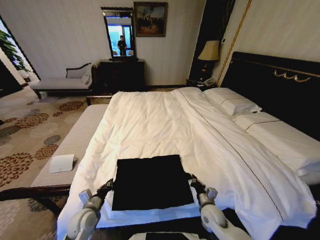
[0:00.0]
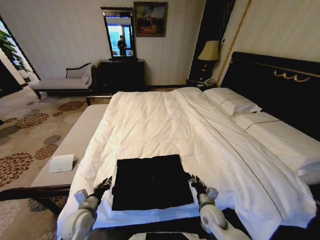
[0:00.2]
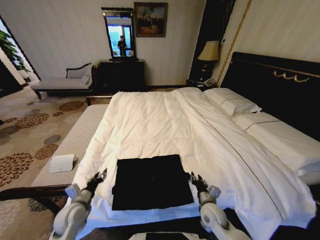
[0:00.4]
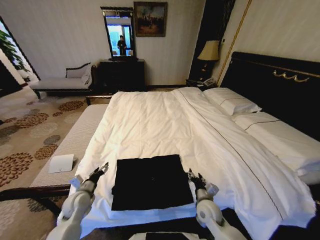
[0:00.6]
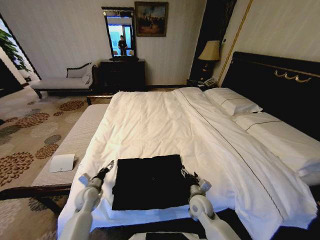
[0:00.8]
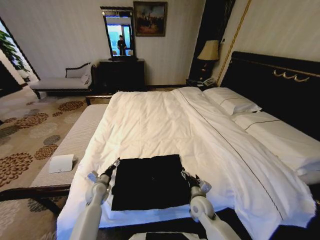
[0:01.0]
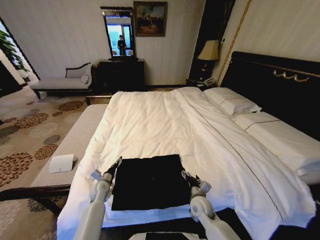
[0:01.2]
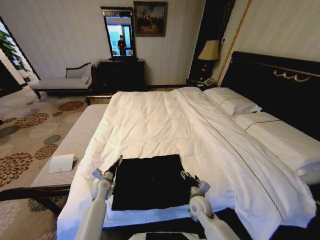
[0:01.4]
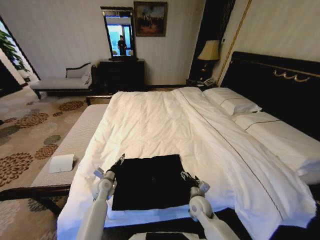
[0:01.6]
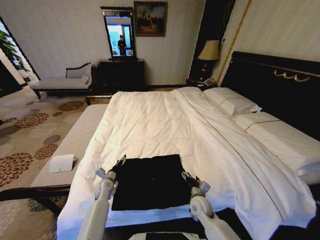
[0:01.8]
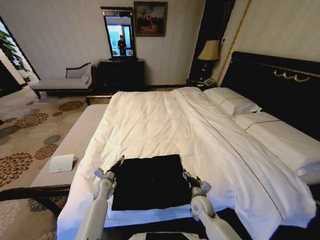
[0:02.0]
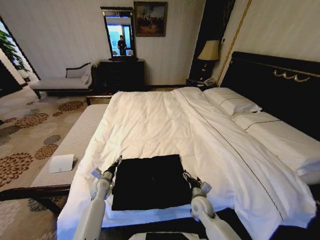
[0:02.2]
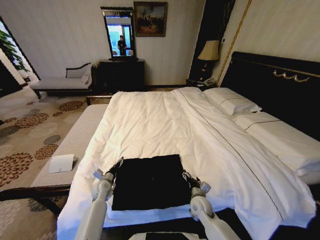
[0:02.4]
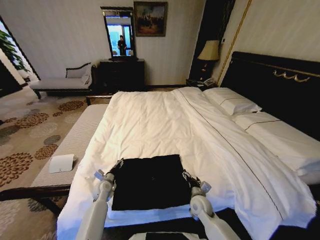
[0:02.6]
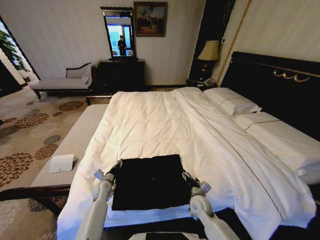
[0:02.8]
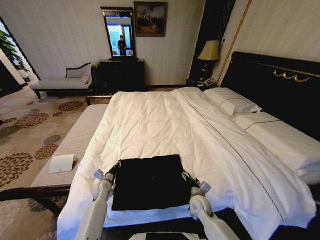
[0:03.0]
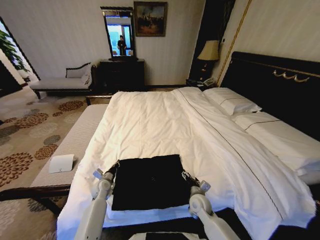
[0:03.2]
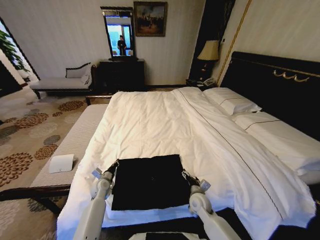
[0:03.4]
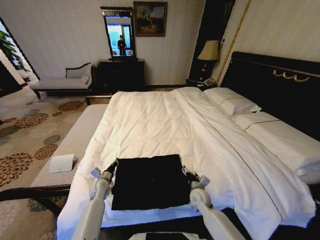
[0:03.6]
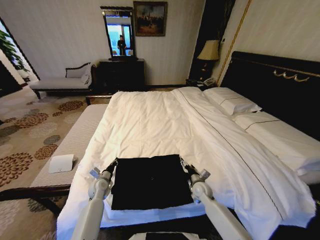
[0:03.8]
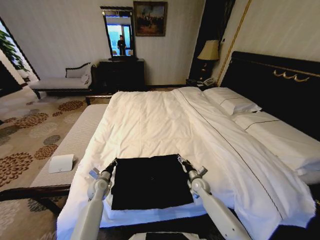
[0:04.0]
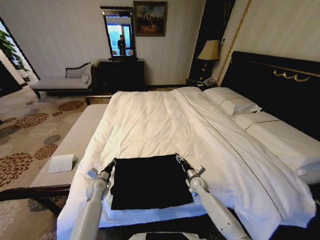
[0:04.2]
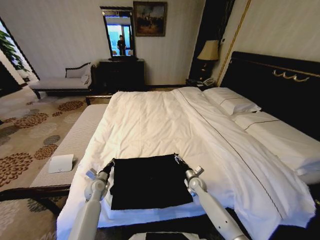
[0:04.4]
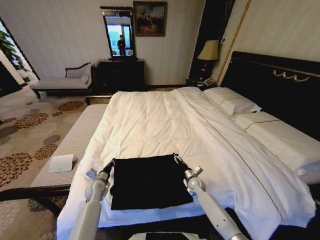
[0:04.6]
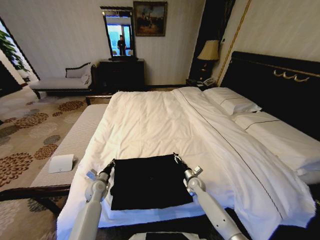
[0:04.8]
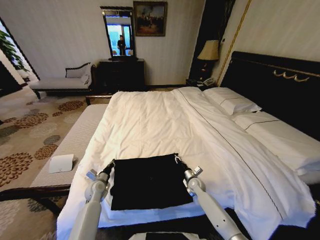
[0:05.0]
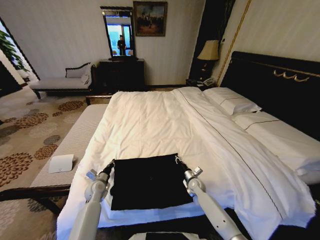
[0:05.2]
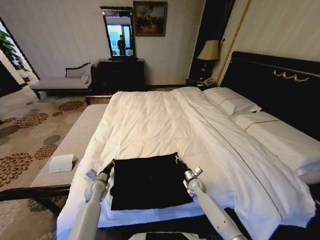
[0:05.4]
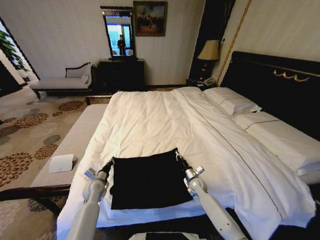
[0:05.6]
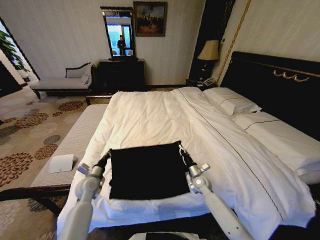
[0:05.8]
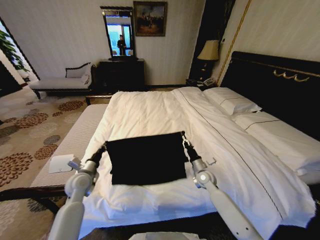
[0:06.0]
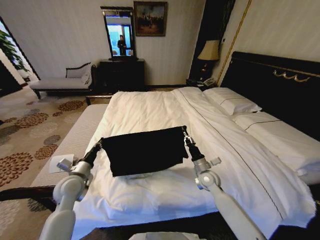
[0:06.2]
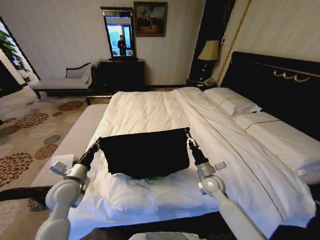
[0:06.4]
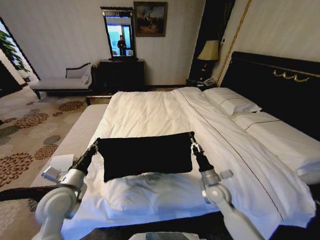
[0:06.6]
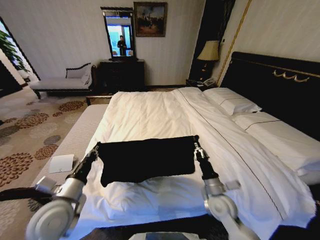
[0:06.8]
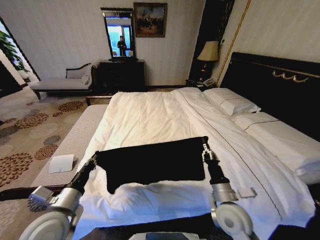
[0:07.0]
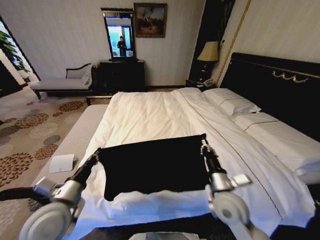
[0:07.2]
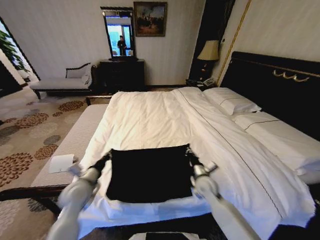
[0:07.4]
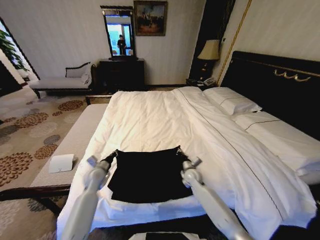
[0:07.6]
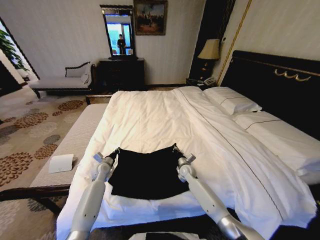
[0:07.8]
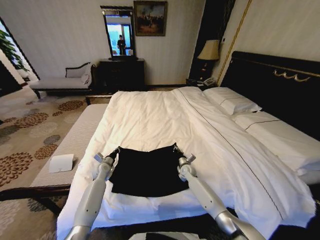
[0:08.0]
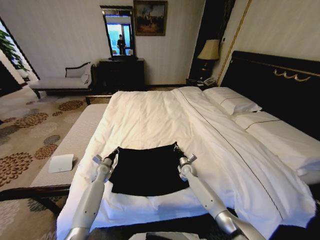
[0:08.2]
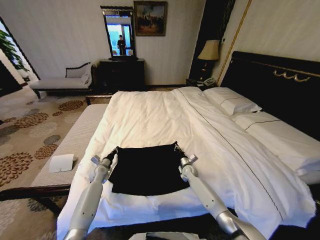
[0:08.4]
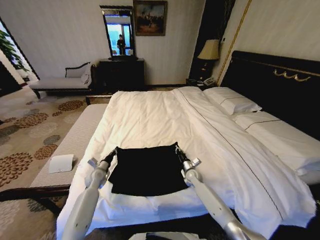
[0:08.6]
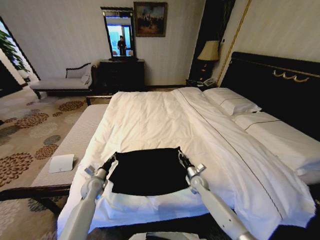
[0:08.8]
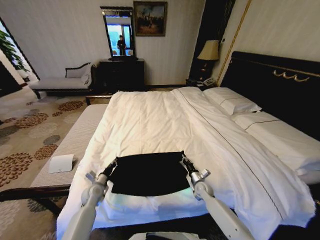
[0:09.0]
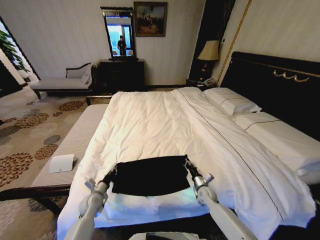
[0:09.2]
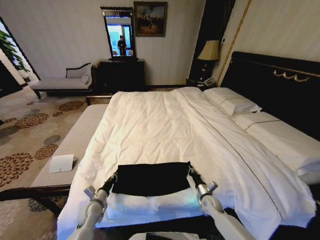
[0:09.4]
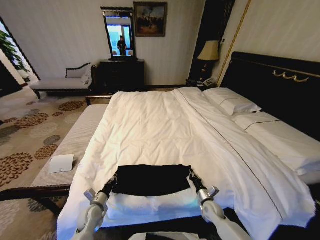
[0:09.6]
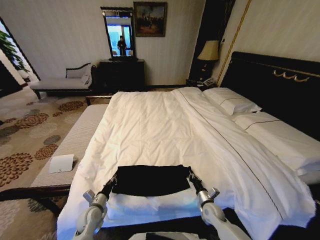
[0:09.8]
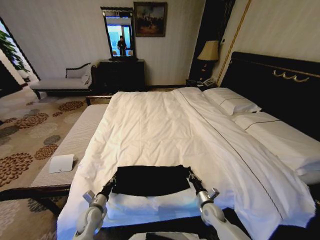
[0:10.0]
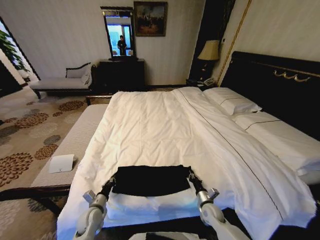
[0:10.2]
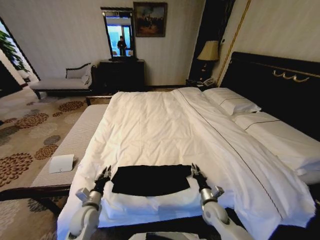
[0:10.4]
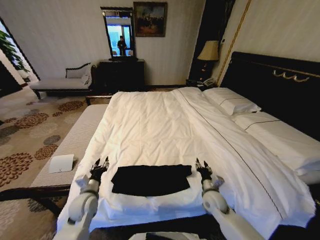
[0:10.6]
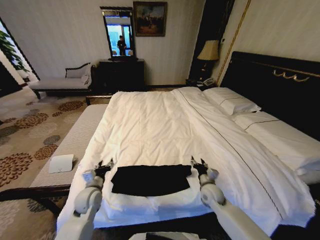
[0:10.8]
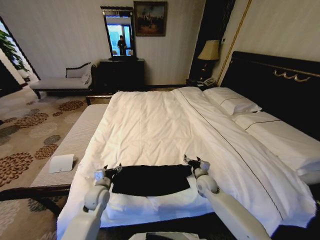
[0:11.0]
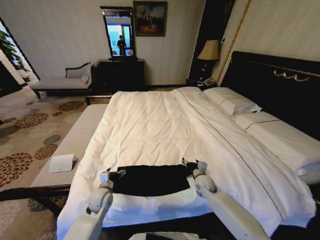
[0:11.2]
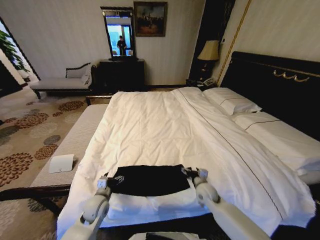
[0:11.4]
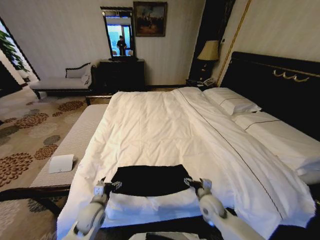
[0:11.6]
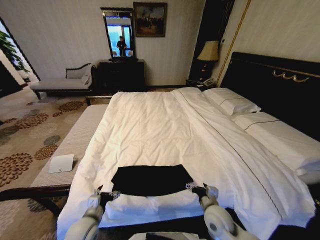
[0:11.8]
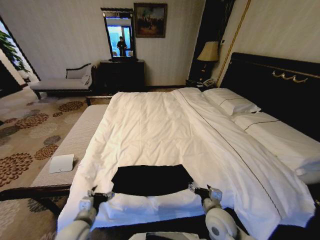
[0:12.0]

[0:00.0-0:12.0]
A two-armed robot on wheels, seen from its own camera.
Task of the whole recording: Fold the clothes on the bed.
0:00.0 to 0:01.6: The right gripper shifts by roughly 5 cm, and opens up; the left gripper travels forward by approximately 15 cm, and opens.
0:01.6 to 0:03.0: The left gripper closes.
0:03.0 to 0:04.4: The right gripper goes about 10 cm forward and downward.
0:04.4 to 0:06.0: The grippers both shift upward by some 10 cm. The right gripper closes its fingers.
0:06.0 to 0:07.6: The right gripper goes some 5 cm to the left, and reaches roughly 20 cm backward, then returns. Meanwhile the left gripper shifts roughly 5 cm downward, and moves approximately 15 cm backward and comes back.
0:07.6 to 0:09.0: The right gripper shifts about 10 cm downward and to the right; the left gripper moves downward and backward, some 10 cm.
0:09.0 to 0:10.4: Both grippers travel together backward, some 10 cm.
0:10.4 to 0:12.0: The left gripper travels upward and backward by roughly 10 cm, and opens its fingers; the right gripper is displaced upward by roughly 10 cm, travels forward and back again, approximately 10 cm each way, and opens.

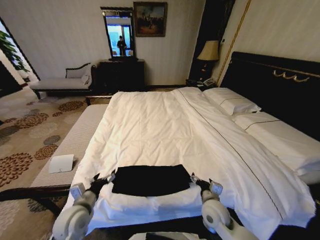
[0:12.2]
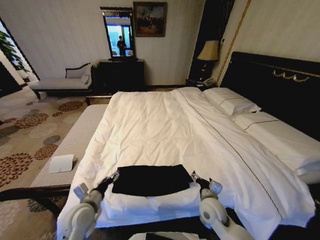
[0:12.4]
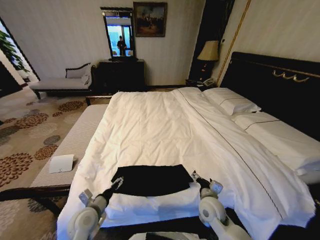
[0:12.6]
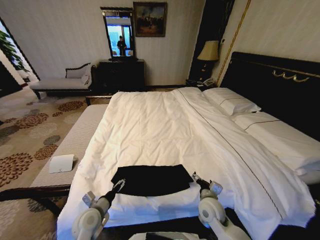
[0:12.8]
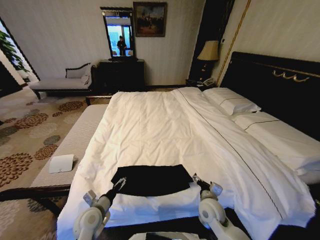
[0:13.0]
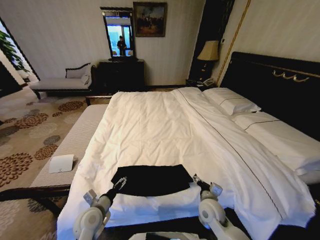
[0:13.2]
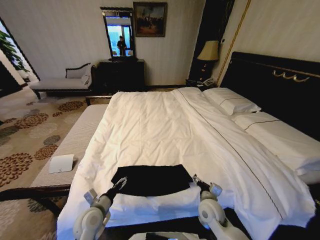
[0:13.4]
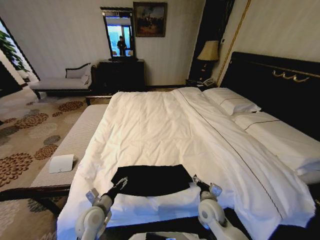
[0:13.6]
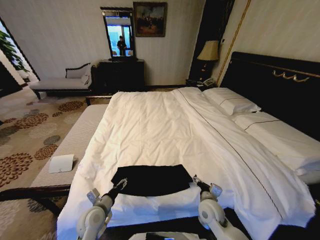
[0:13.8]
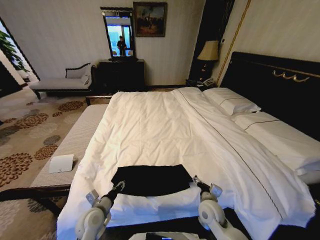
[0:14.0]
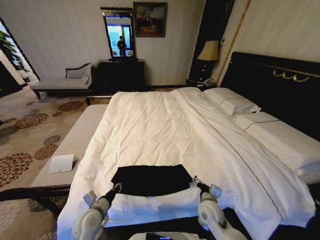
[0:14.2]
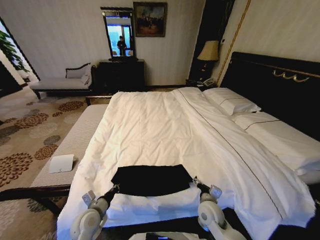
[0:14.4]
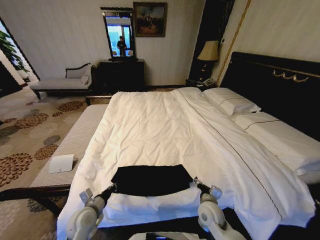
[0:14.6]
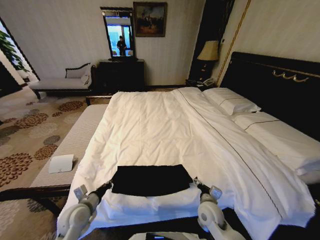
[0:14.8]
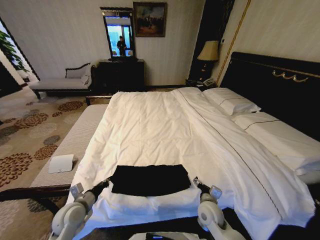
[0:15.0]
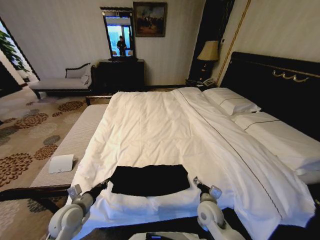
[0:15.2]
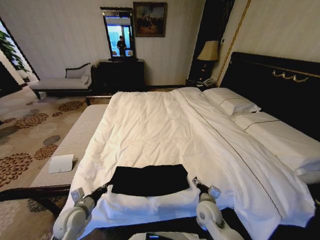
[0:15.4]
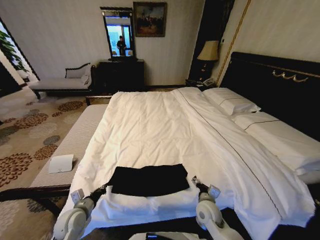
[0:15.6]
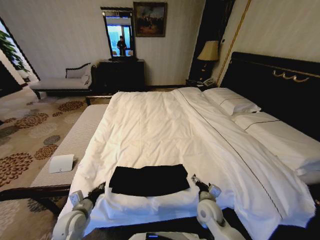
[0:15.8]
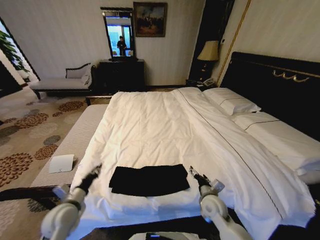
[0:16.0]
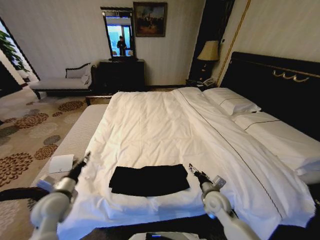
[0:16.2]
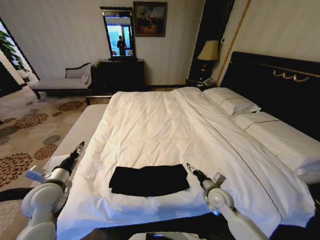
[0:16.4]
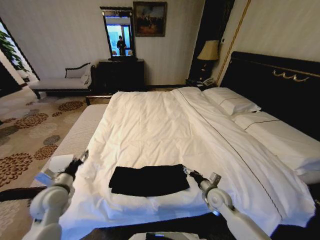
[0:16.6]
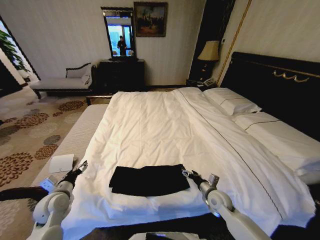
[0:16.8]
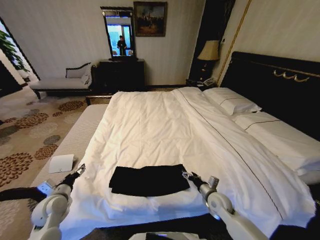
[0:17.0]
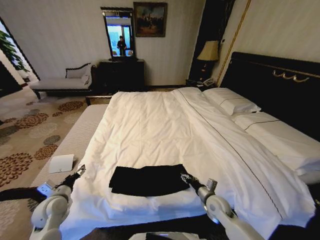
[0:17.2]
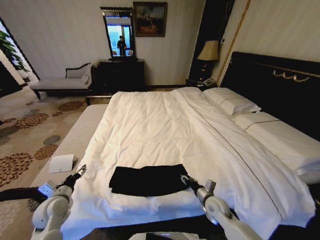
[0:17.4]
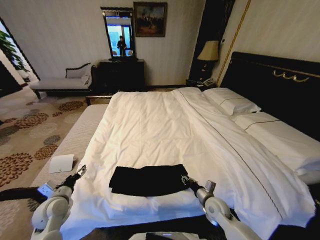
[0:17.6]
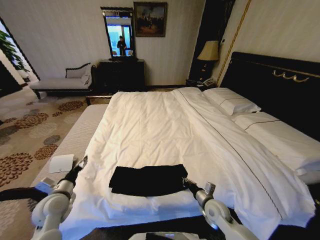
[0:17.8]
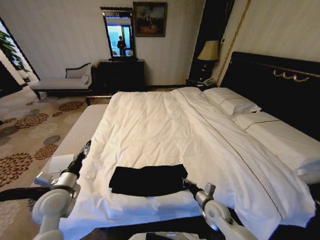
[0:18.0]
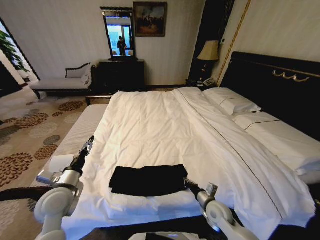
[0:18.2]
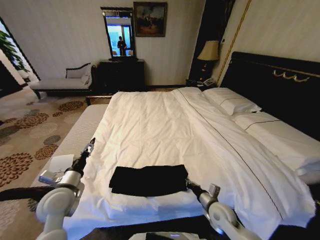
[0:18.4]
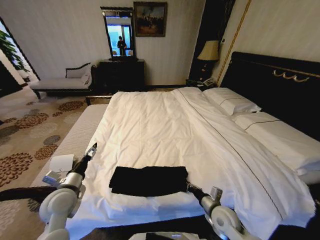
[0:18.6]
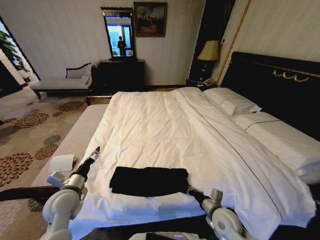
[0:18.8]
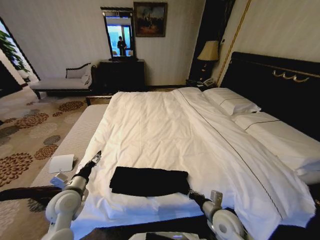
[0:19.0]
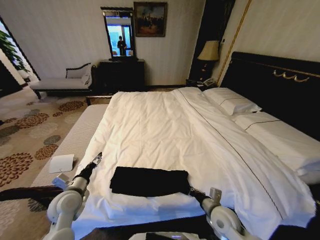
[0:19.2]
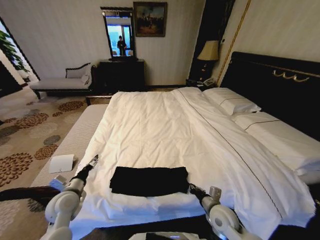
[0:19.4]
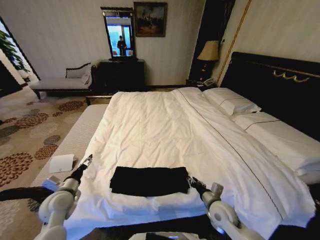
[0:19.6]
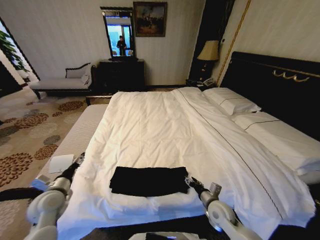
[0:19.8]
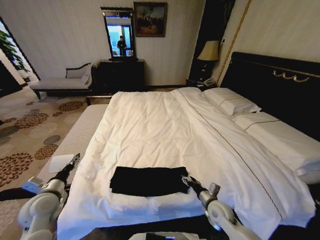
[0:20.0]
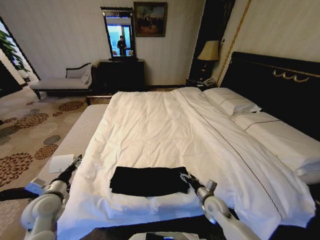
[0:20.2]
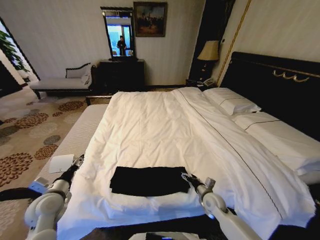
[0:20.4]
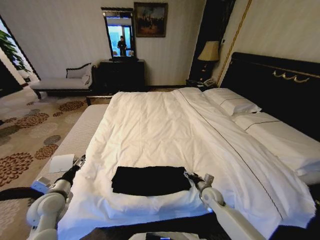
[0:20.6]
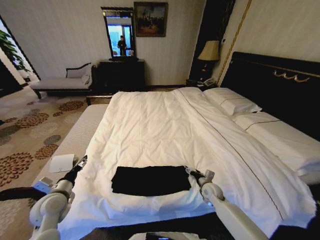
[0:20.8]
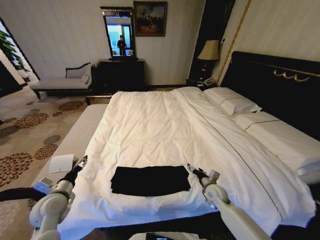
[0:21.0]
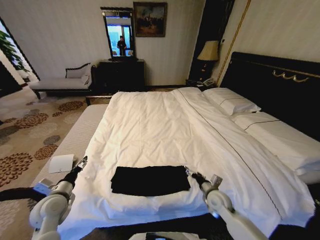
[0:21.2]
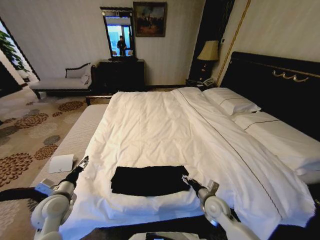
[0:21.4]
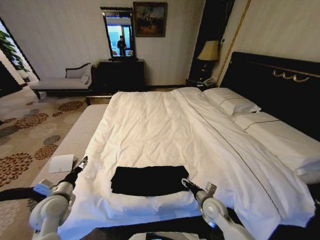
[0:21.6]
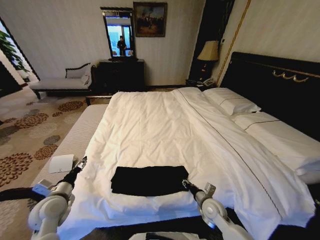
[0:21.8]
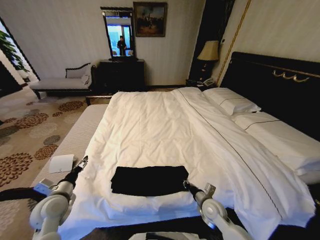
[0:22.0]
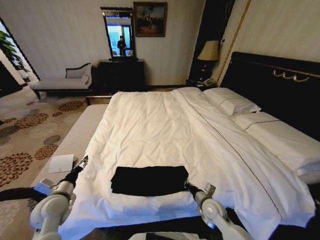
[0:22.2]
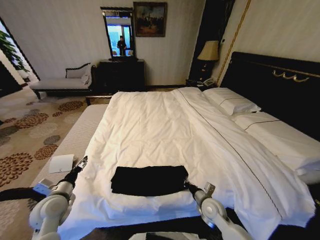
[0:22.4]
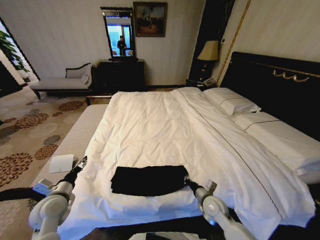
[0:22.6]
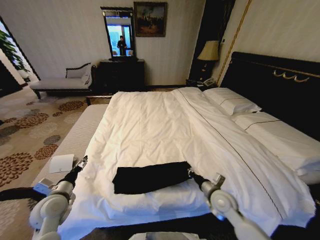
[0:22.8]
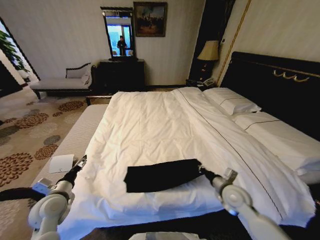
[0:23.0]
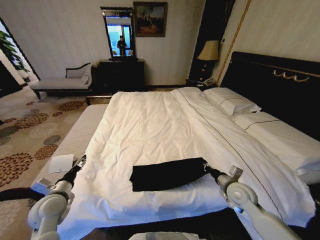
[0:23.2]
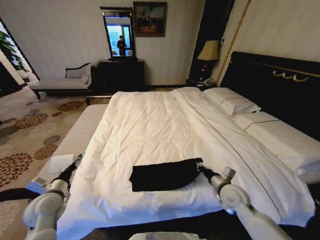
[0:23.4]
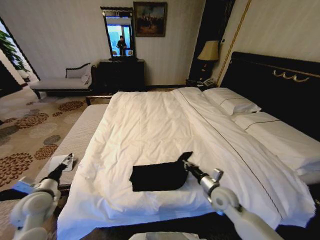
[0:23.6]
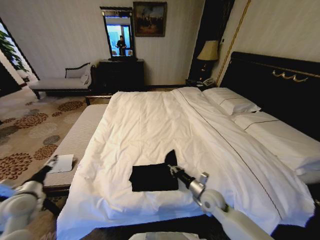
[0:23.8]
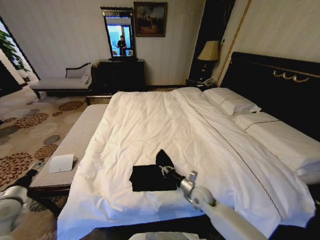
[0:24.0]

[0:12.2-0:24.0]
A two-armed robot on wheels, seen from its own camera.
Task of the whole recording: Fold the clothes on the bed.
0:12.2 to 0:13.6: The left gripper heads downward, covering approximately 5 cm.
0:13.6 to 0:15.2: The left gripper shifts about 10 cm to the left, and closes up.
0:15.2 to 0:16.6: The right gripper moves to the right and forward, roughly 10 cm, while the left gripper moves upward, some 5 cm, and opens.
0:16.6 to 0:18.2: The right gripper ends up some 5 cm from where it was, and closes its fingers; the left gripper reaches about 5 cm downward, then returns.
0:18.2 to 0:19.6: The left gripper moves downward, some 5 cm; the right gripper opens.
0:19.6 to 0:21.0: The right gripper is displaced forward by approximately 10 cm, and opens.
0:21.0 to 0:22.6: The right gripper travels backward by roughly 5 cm, and closes up.
0:22.6 to 0:24.0: The right gripper moves about 10 cm to the right and comes back, while the left gripper goes about 15 cm to the left.
